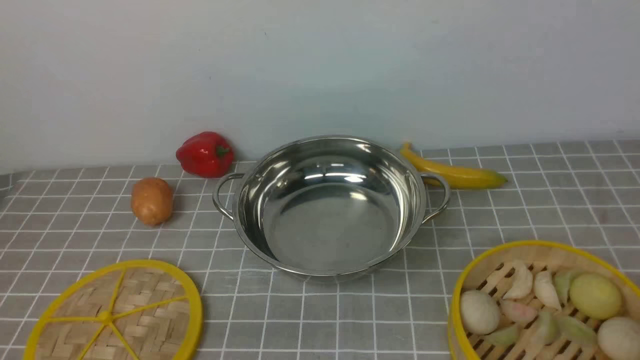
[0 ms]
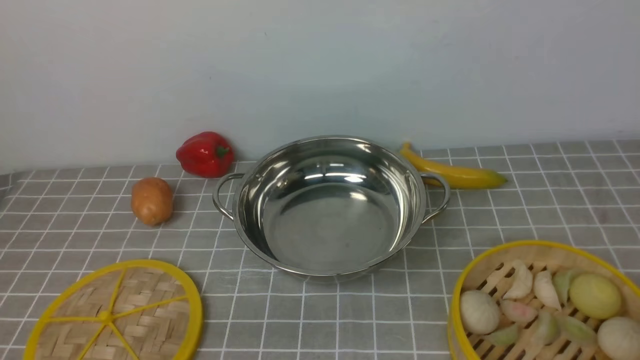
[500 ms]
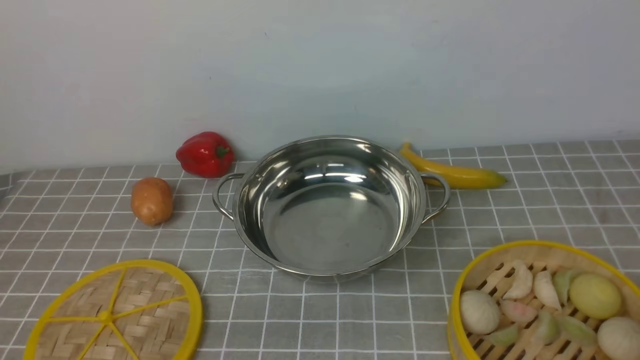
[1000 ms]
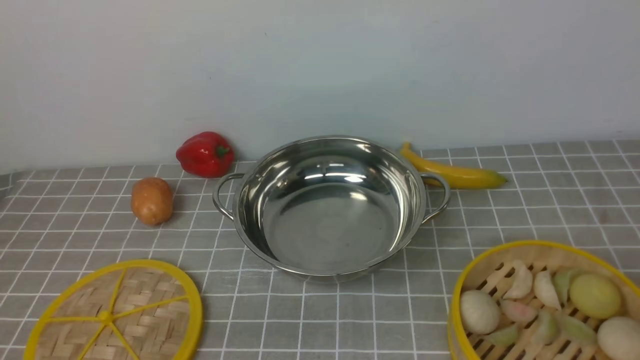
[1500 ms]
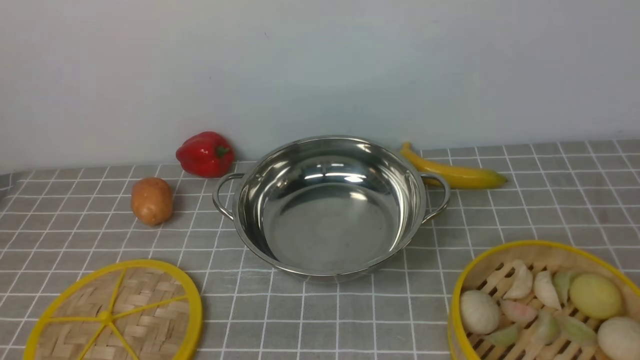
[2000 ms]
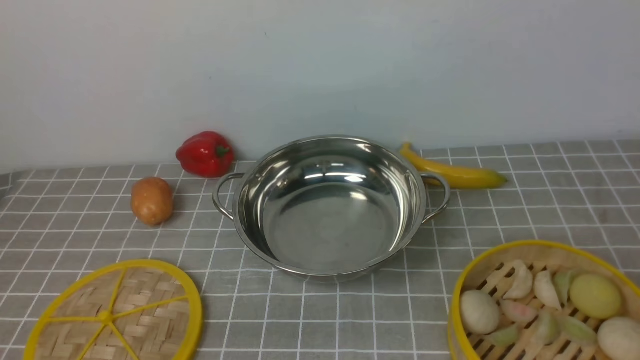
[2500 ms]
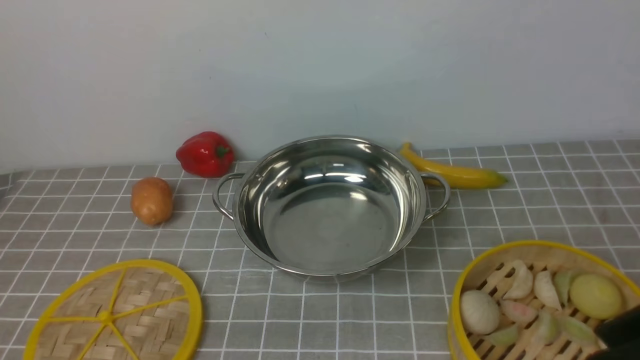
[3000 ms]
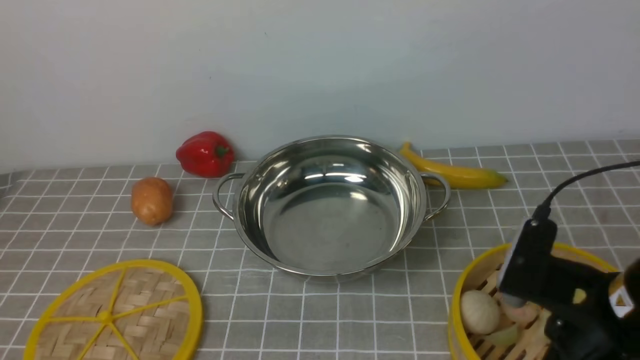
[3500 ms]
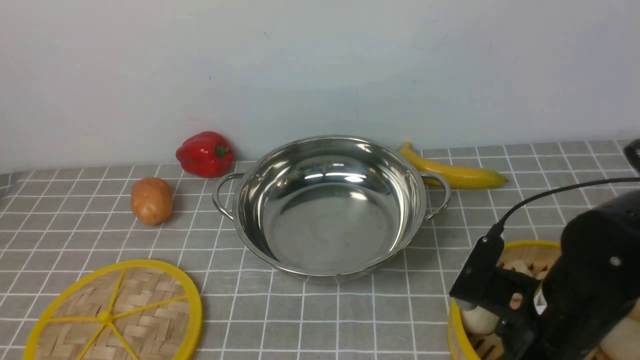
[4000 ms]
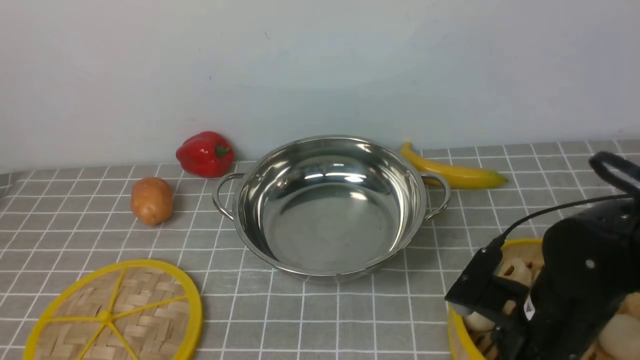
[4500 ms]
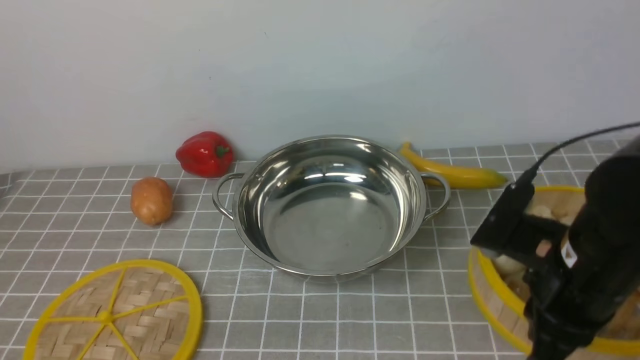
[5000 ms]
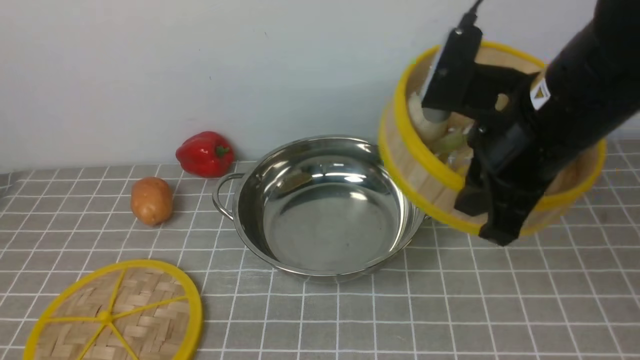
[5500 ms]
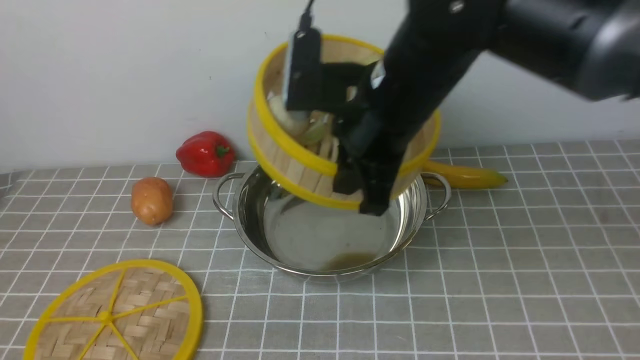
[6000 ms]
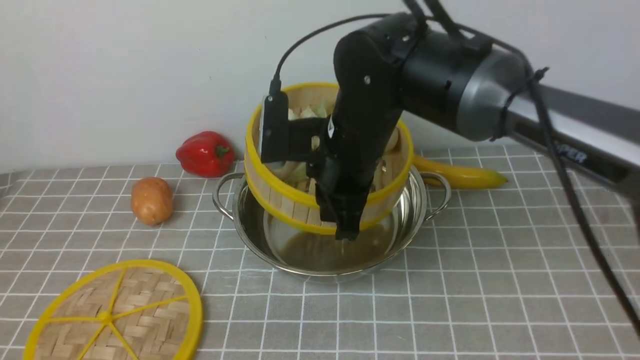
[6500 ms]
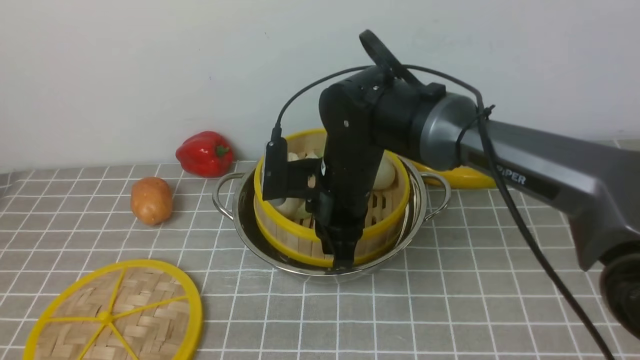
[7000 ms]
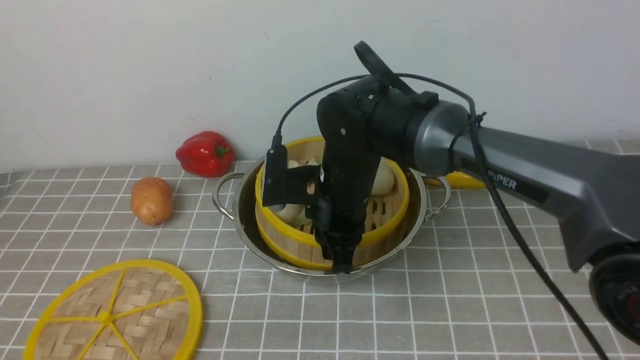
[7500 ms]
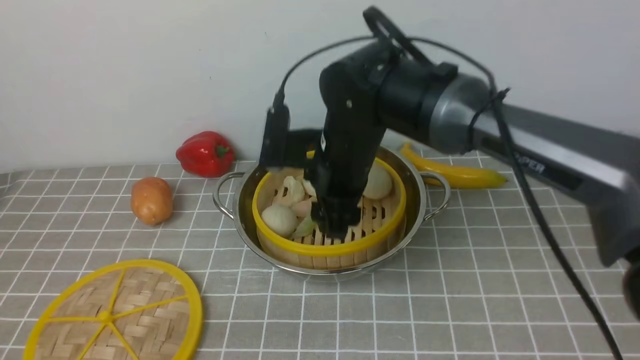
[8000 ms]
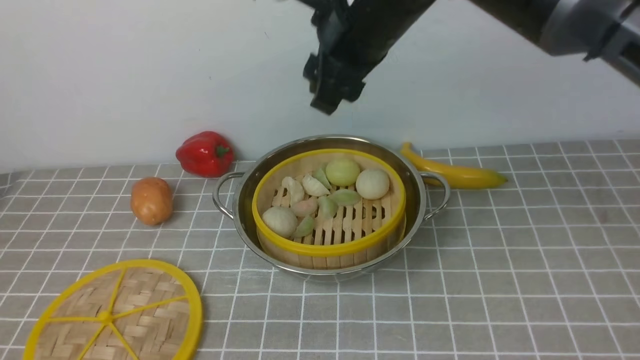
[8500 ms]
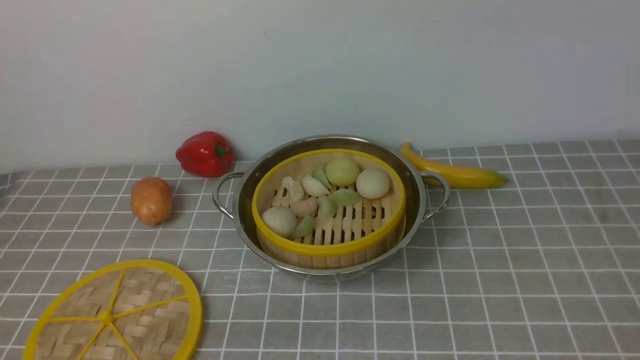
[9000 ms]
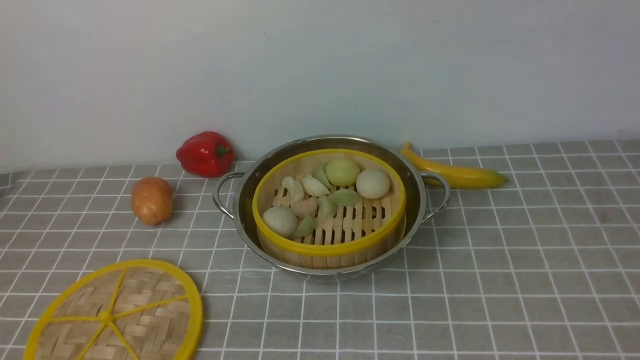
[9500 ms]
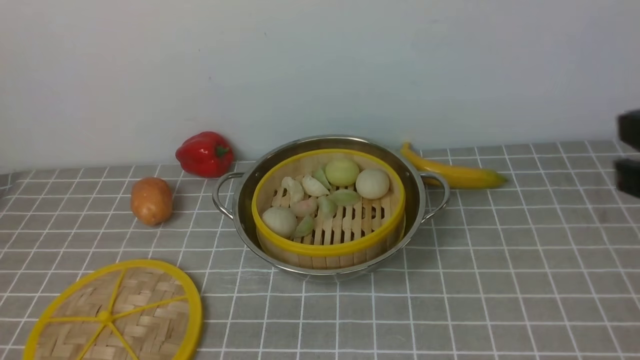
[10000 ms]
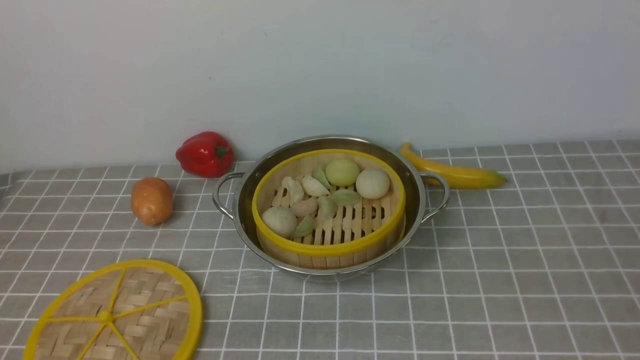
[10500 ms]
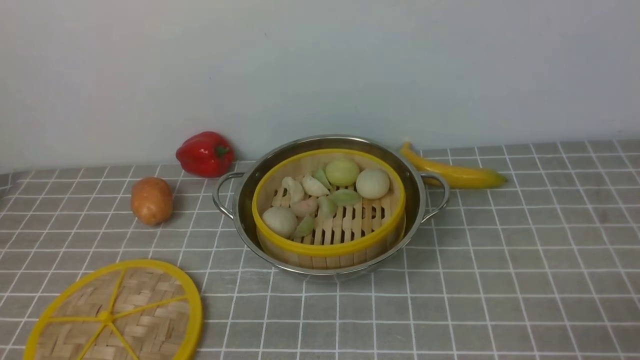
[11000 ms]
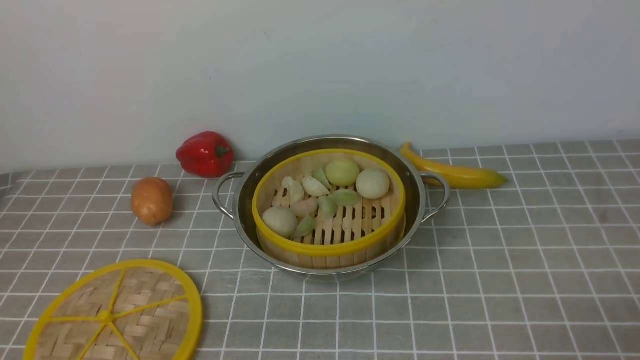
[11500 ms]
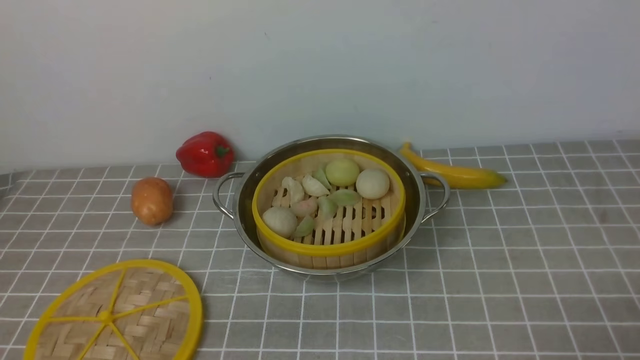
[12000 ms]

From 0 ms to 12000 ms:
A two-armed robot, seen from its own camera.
Task of the whole recording: place the steamer in the pot on the grey tablecloth, and put the lid on the steamer.
Step, from 0 ms to 4500 ms: use the right arm to lift the steamer closest to it.
Step, from 5000 ms to 8000 ms: use the right arm to put the steamer into the iron steamer pot in the middle.
From 2000 ms to 4000 ms: The right gripper goes about 25 cm downward, forward and to the left, and opens up.
From 4000 ms to 6000 ms: The right gripper is displaced upward, to the left and forward by approximately 20 cm, and closes up.
From 6000 ms to 8000 ms: The right gripper moves downward, some 5 cm, and opens up.
From 8000 ms to 10000 ms: The right gripper heads to the right and backward, covering about 30 cm, and closes its fingers.
From 10000 ms to 12000 ms: The right gripper travels downward and backward by about 20 cm, and opens up.

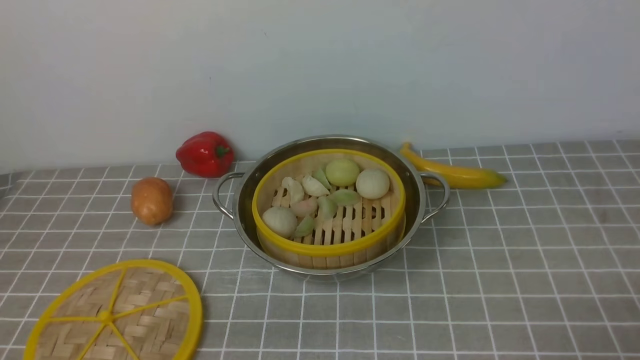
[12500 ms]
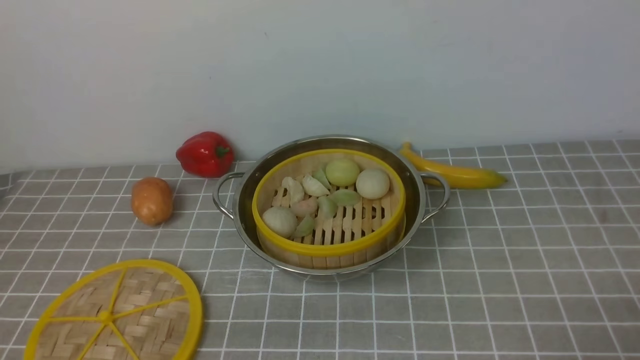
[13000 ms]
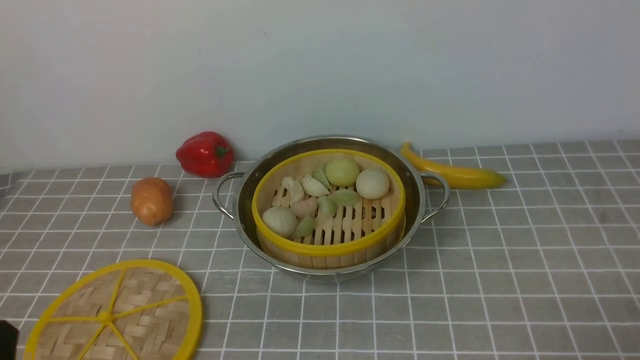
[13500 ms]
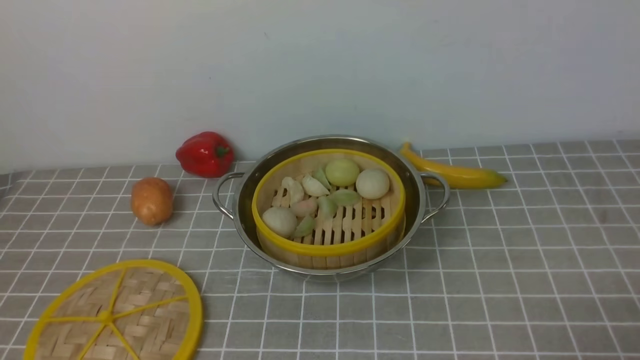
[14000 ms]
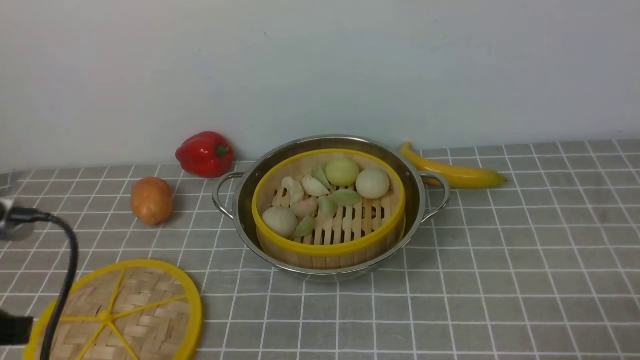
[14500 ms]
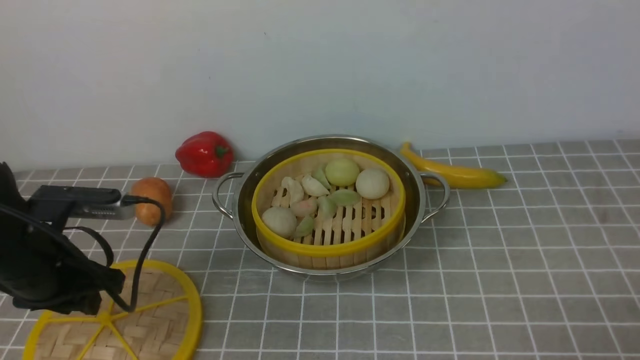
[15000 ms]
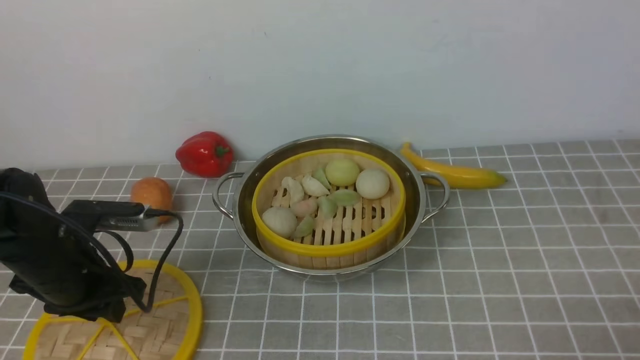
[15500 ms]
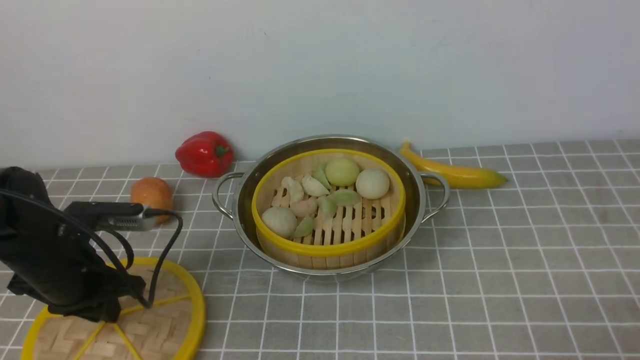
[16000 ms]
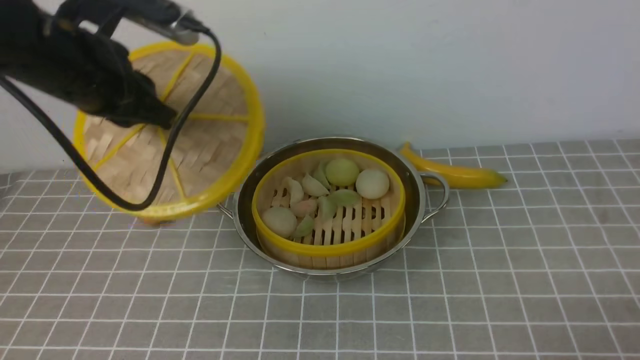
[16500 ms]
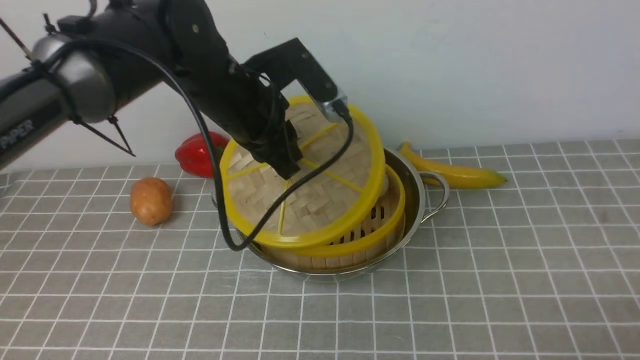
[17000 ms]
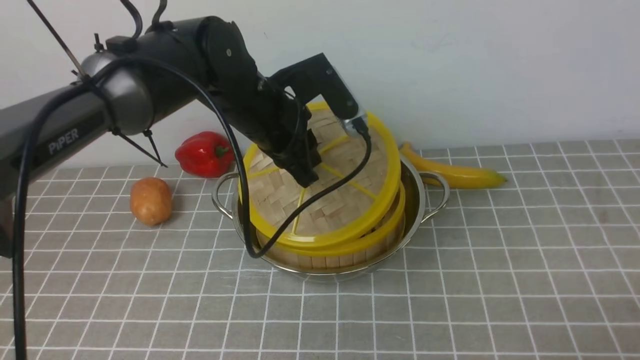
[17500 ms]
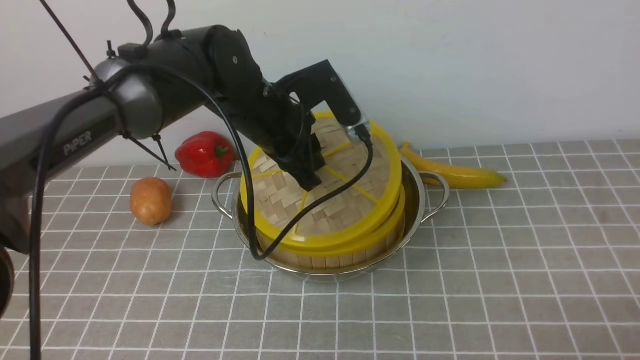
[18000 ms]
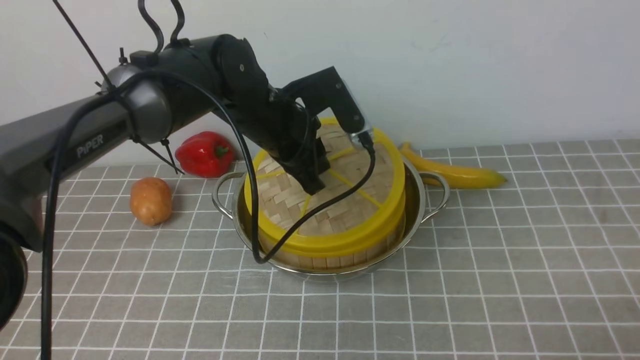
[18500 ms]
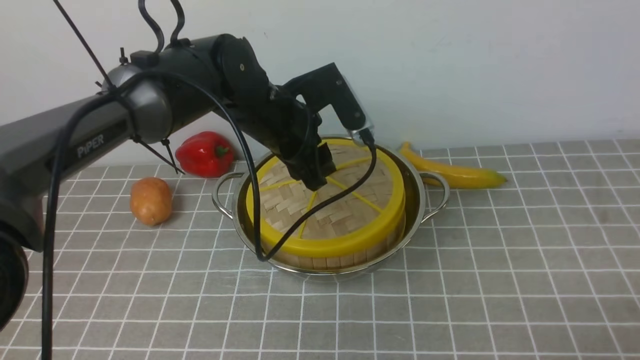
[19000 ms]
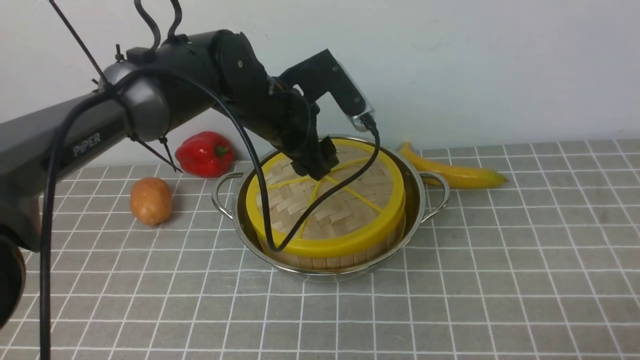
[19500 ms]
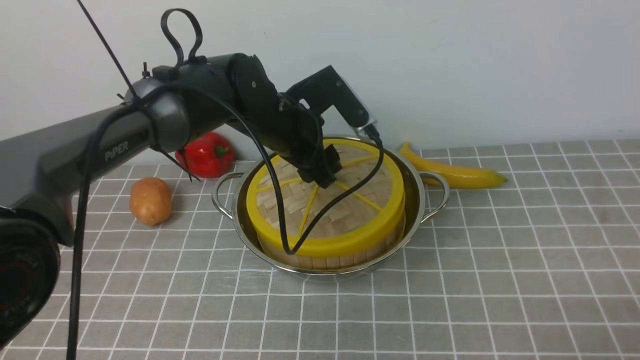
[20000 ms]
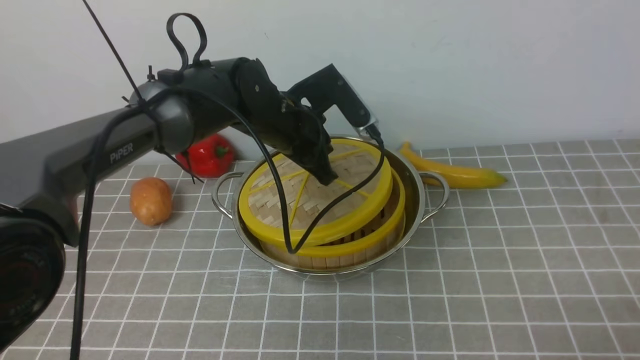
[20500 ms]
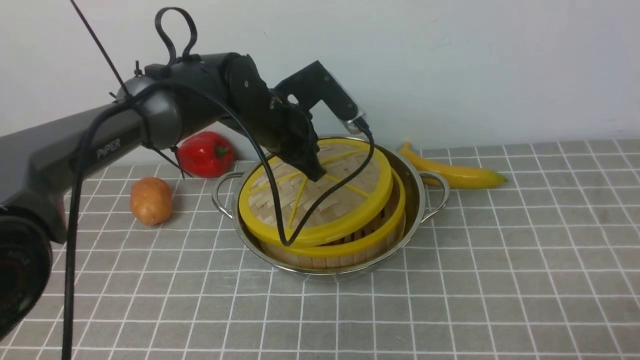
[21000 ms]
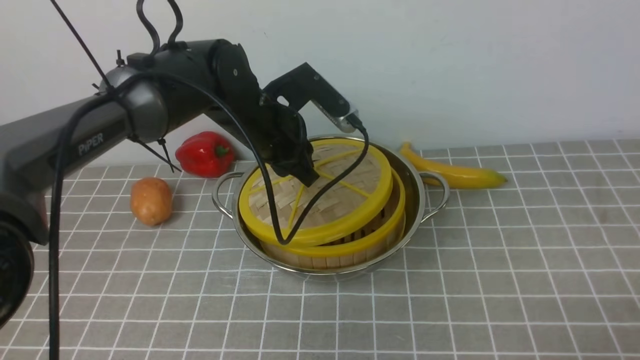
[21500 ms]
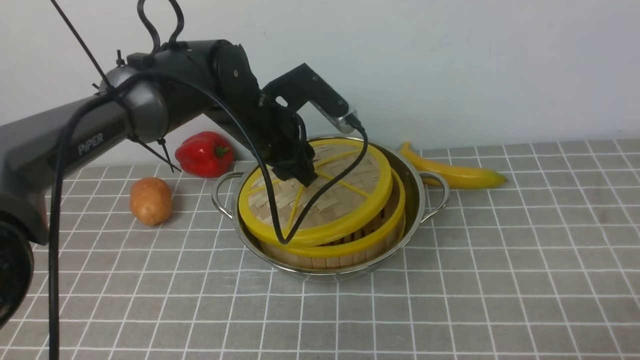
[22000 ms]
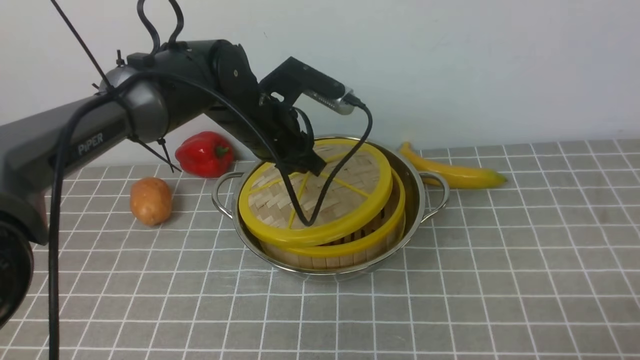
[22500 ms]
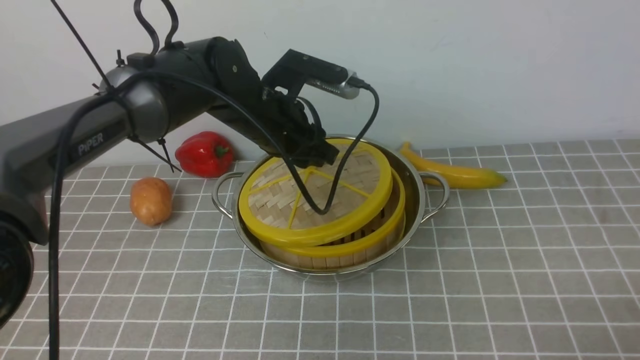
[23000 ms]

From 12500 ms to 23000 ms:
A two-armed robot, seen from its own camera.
Task of the whole recording: place the steamer in the pot on the grey tablecloth, and put the lid on the steamer.
Step, from 12500 ms to 16000 ms: use the left arm to lift the lid of the steamer.
From 12500 ms to 14500 ms: The left gripper goes roughly 15 cm upward and forward.
From 14500 ms to 16500 ms: The left gripper is displaced forward by some 20 cm.
From 16500 ms to 19000 ms: The left gripper moves to the right, downward and forward, approximately 15 cm, and opens up.
From 19000 ms to 21000 ms: The left gripper closes its fingers.
From 21000 ms to 23000 ms: The left gripper opens its fingers.
